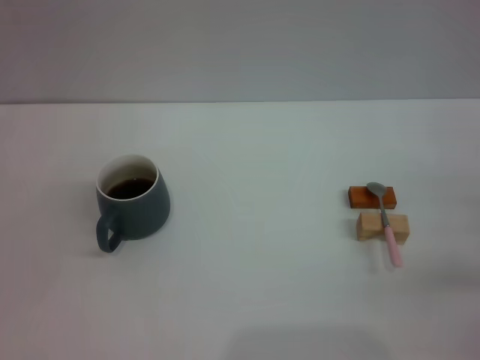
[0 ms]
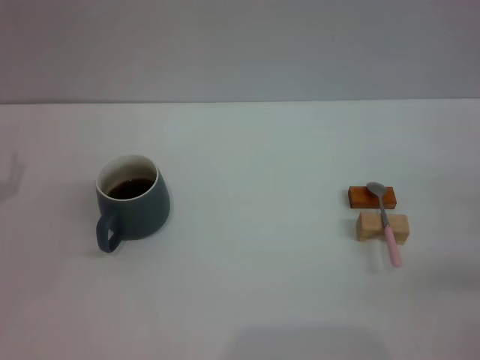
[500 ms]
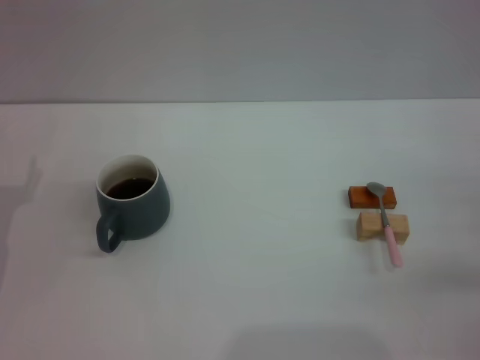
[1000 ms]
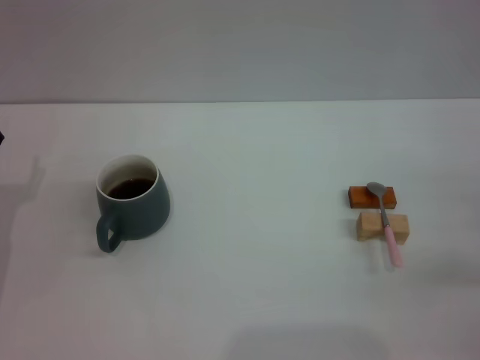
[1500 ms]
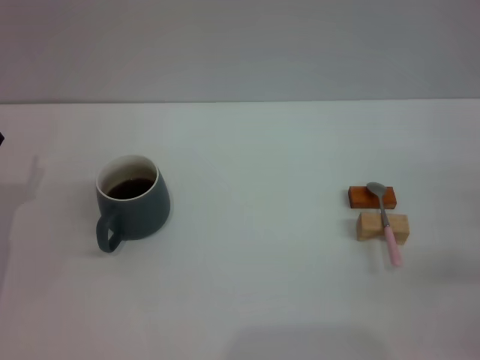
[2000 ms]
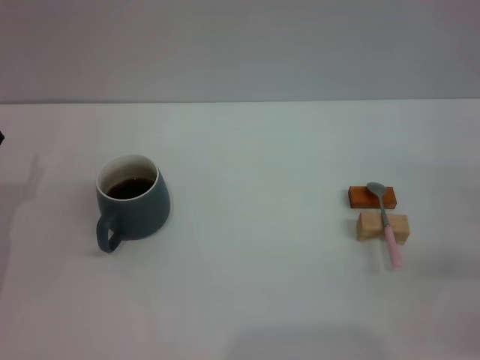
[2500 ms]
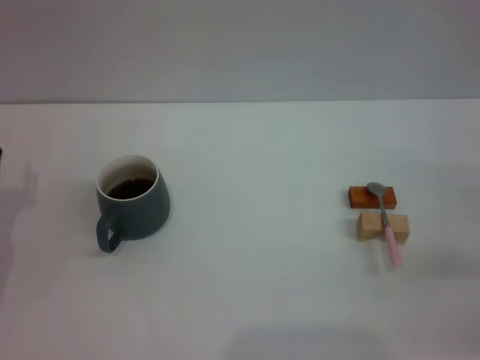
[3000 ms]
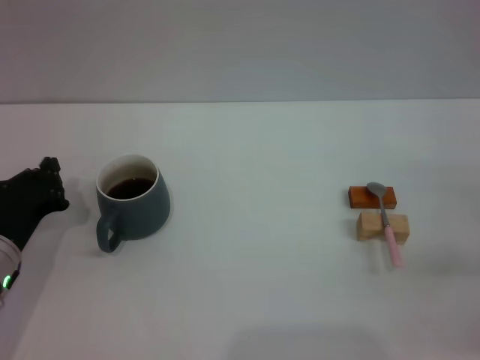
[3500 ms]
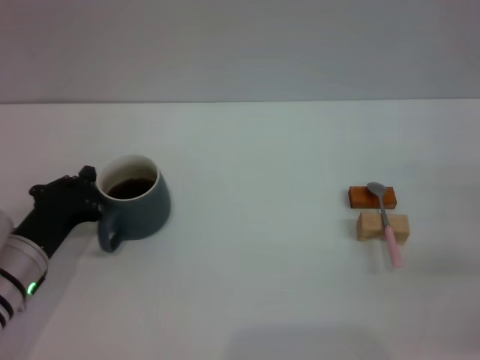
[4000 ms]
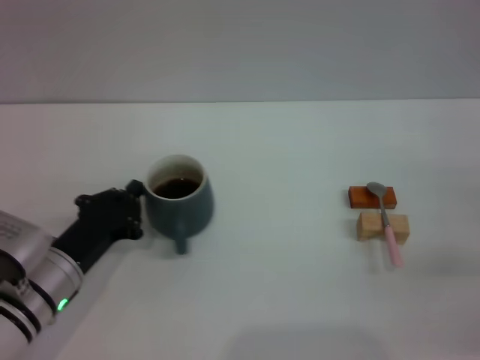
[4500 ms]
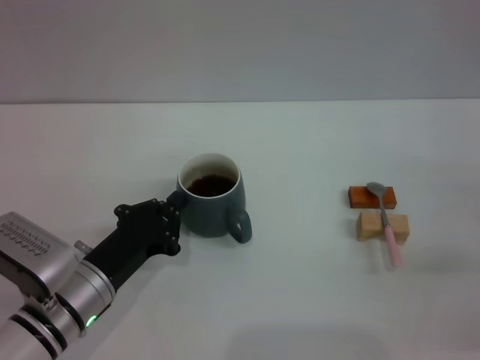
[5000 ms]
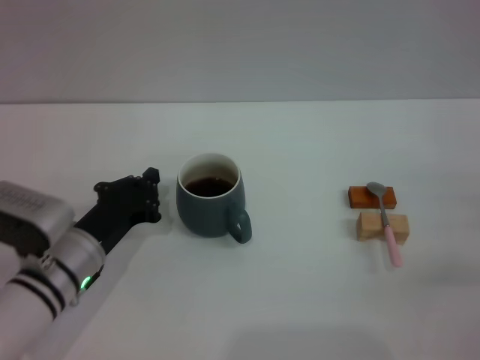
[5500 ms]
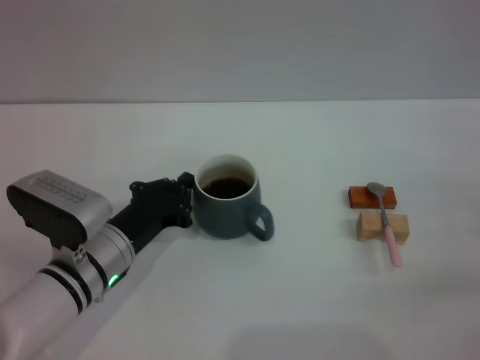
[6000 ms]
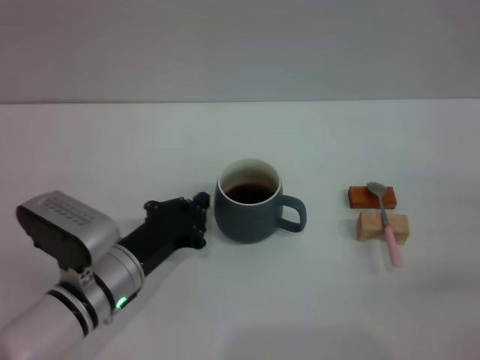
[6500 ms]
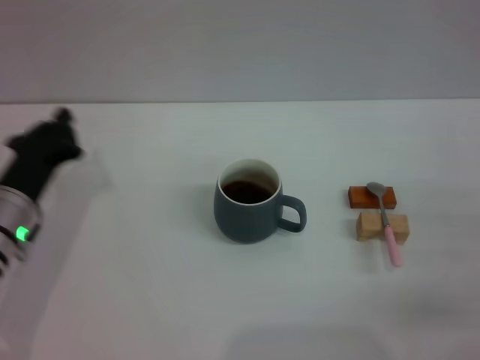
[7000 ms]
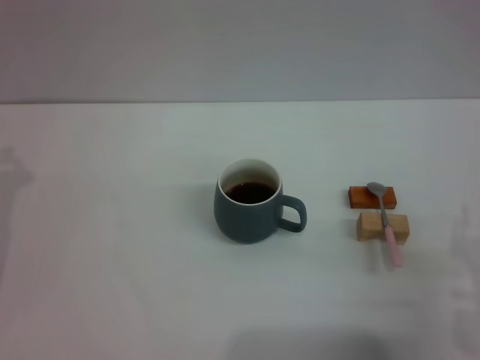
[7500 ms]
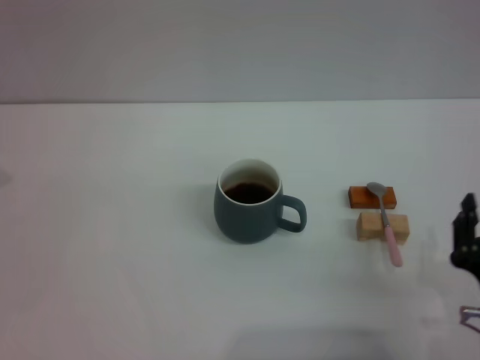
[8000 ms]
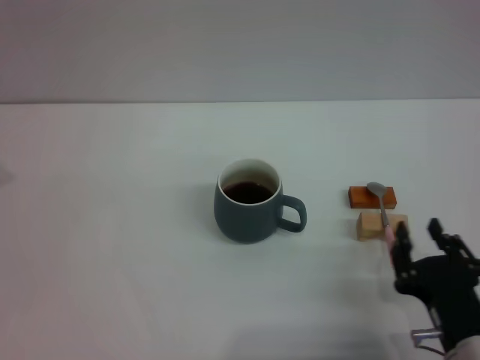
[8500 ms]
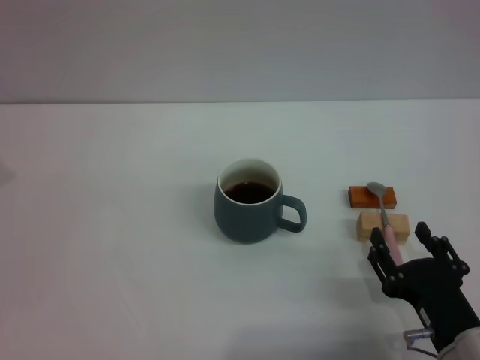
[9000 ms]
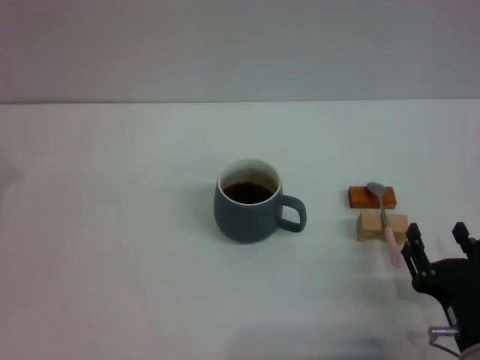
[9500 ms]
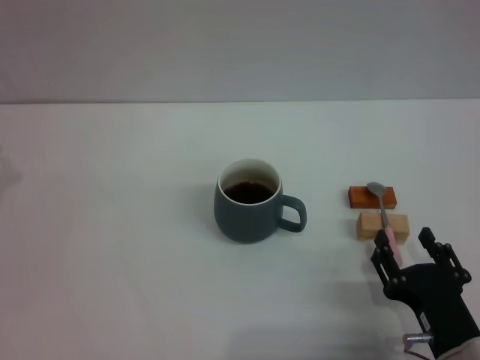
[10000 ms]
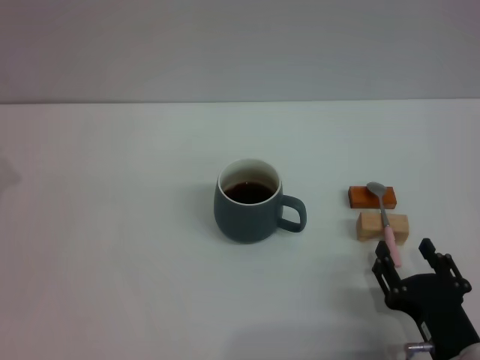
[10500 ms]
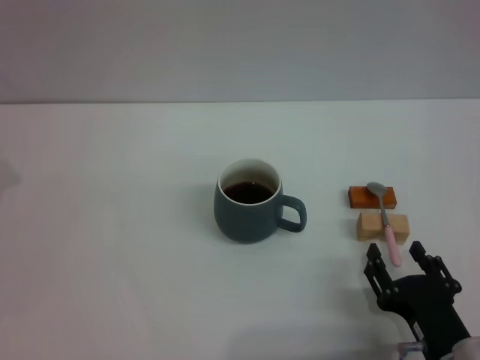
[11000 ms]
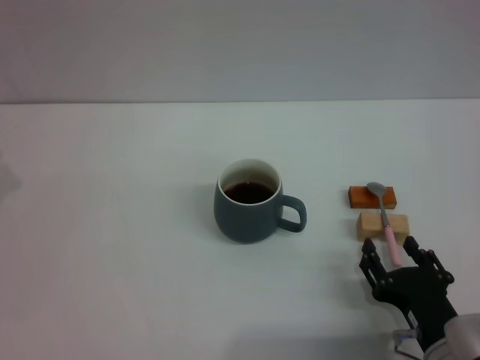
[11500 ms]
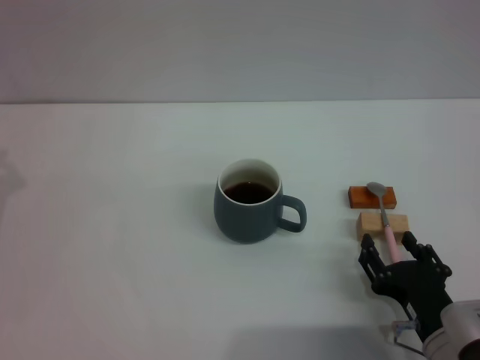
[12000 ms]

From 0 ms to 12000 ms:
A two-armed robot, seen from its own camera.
Task of the whole recording: Move the grey cup to the center, lift the pink spoon, stir it three times in the cup, and put the spoon into the cup.
Step, from 0 ms to 6500 ms: Move the cup with coffee to the center of view with the left gripper.
From 2000 ms to 4000 ms: The left gripper travels to the right by approximately 5 cm, and closes up.
From 4000 ms to 6000 ms: The left gripper goes some 10 cm to the right.
From 6000 ms to 8000 ms: The right gripper goes approximately 20 cm to the left and backward, while the left gripper shifts roughly 15 cm to the left.
From 8000 ms to 10000 ms: The grippers move only a little.
From 10000 ms to 12000 ms: The grippers stay close to where they were, moving slightly.

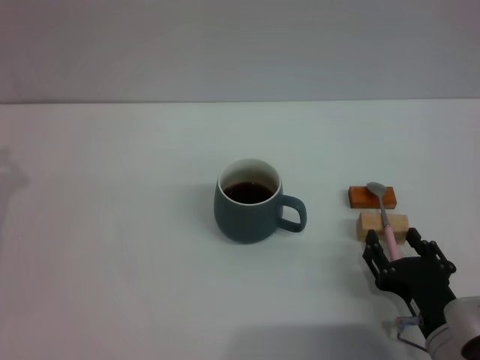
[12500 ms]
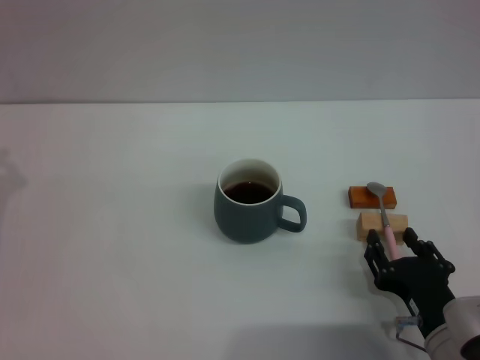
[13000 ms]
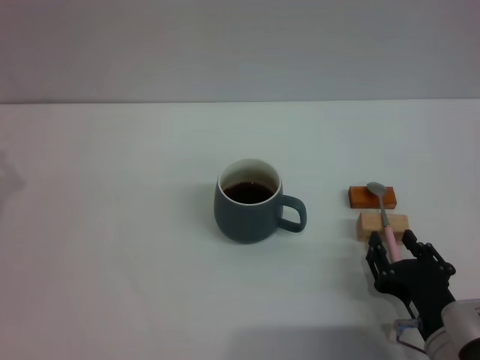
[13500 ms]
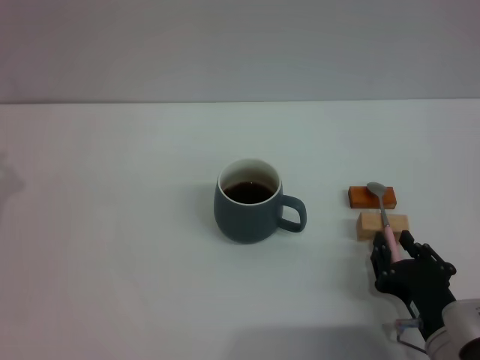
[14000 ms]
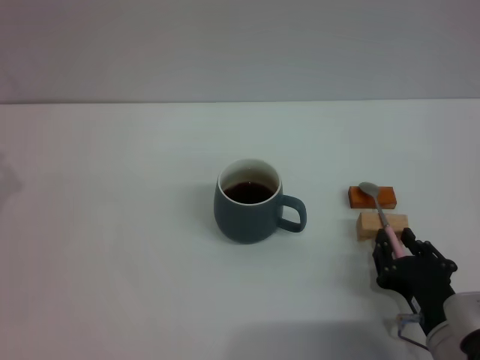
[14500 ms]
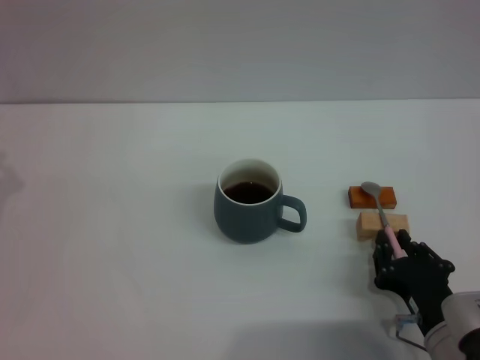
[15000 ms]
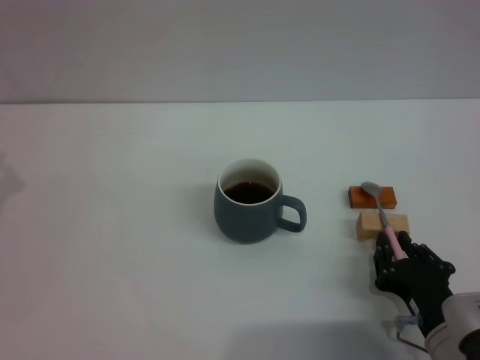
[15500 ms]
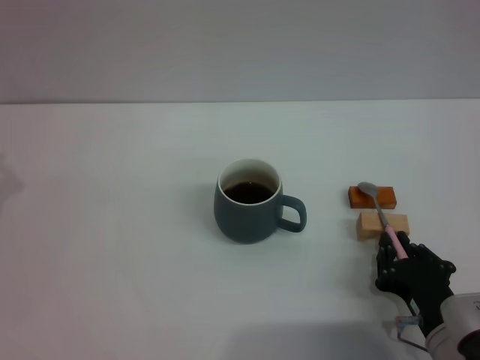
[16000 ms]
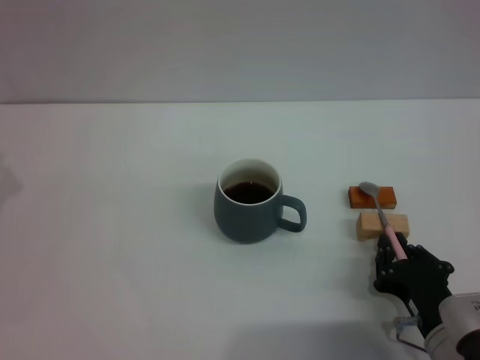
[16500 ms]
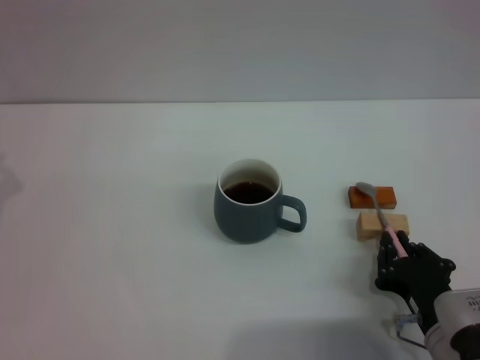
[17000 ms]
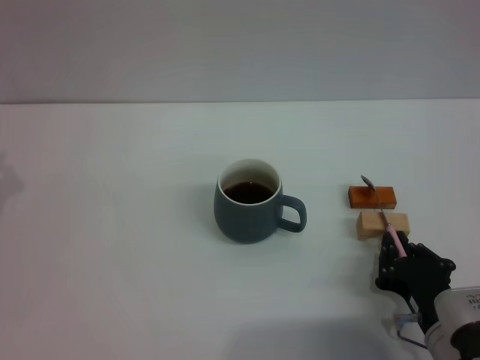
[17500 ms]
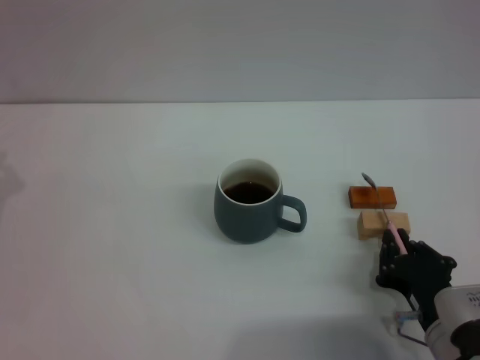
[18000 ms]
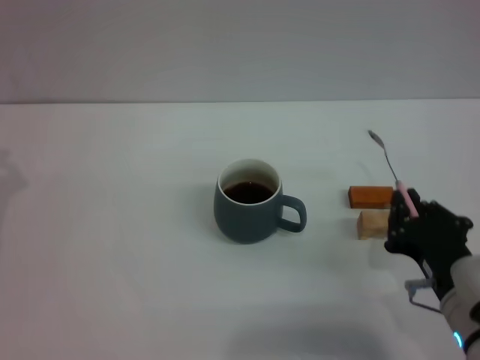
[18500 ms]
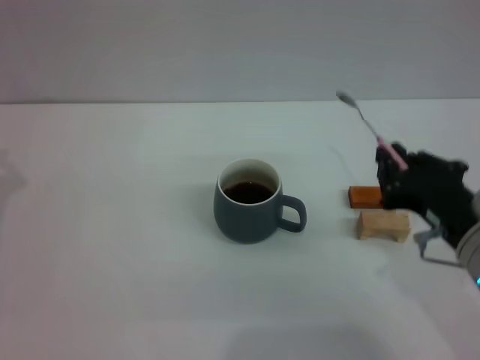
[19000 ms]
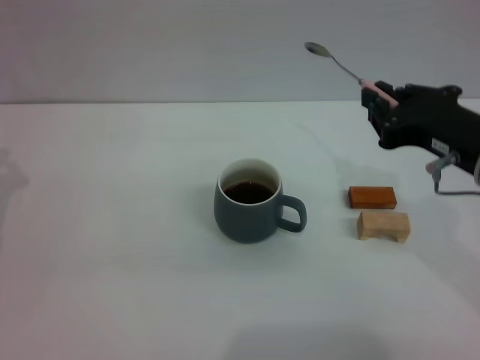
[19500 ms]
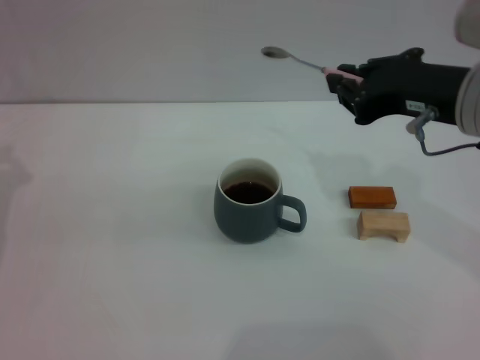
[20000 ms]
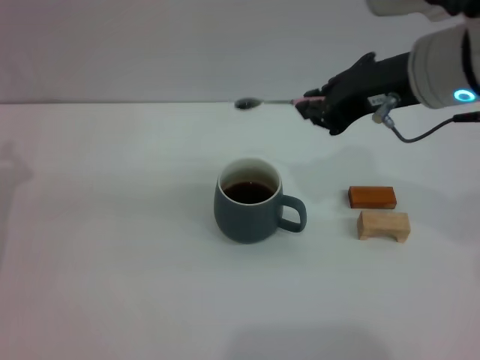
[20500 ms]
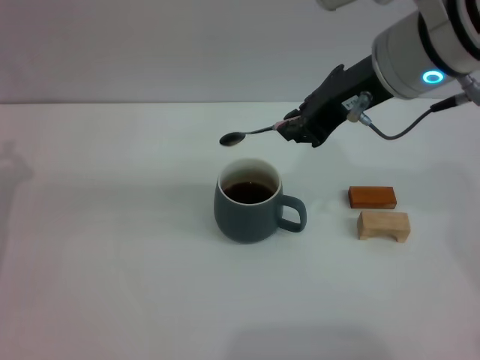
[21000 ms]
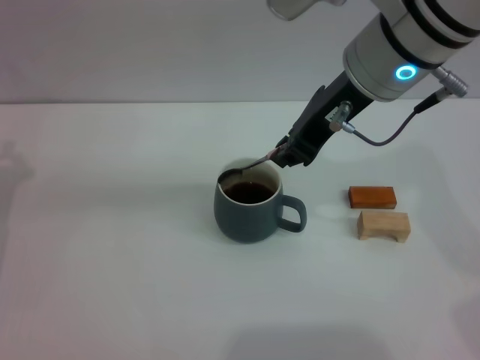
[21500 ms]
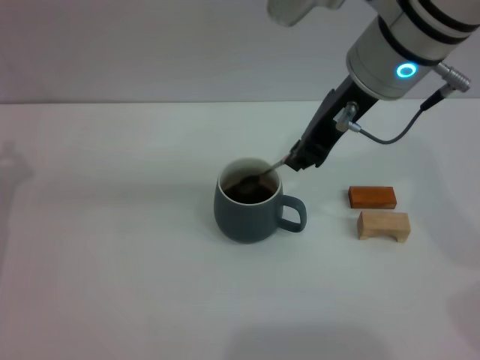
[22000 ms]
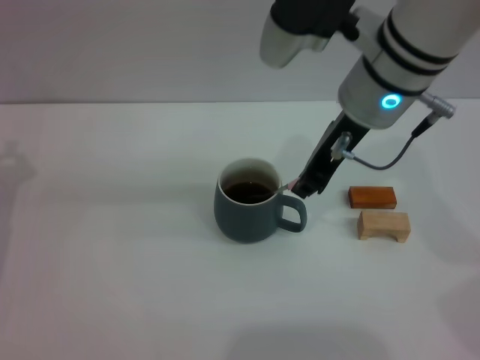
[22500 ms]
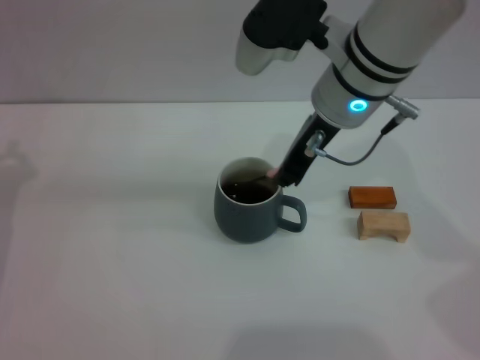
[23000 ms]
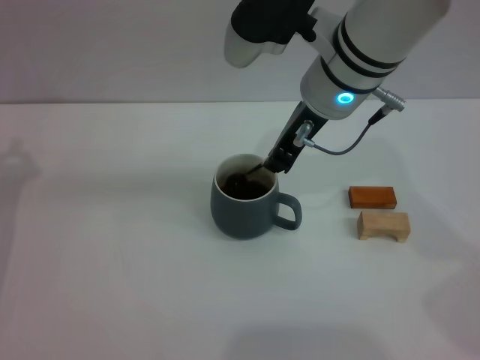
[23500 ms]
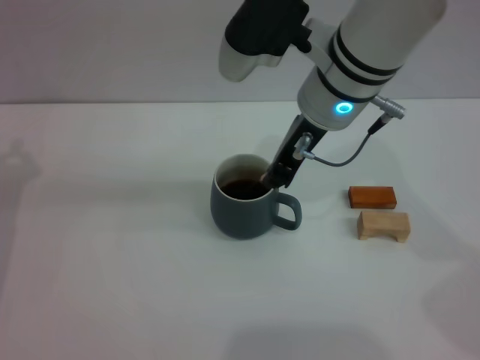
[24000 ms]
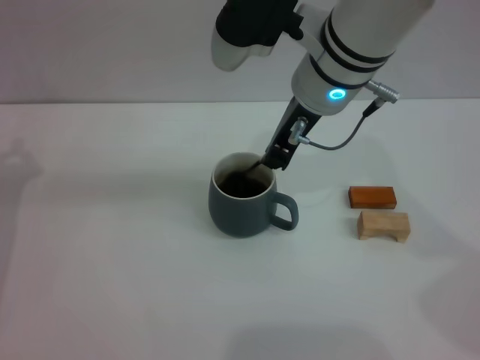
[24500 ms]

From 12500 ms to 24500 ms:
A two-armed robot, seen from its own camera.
Task of the whole recording: Move the grey cup to the center, lift the pink spoon, stir it three times in the cup, and put the spoon into the cup.
Step, from 12500 ms to 18000 ms: Pick up the spoon with the right gripper.
From 12500 ms to 14500 ms: The right gripper closes its fingers.
From 14500 ms to 16500 ms: Both grippers stay about where they are.
From 16500 ms to 18500 ms: The right gripper shifts some 5 cm upward.
From 18500 ms to 20500 ms: The right gripper heads upward and forward, covering some 25 cm.
From 20500 ms to 22500 ms: The right gripper moves to the left, some 5 cm.
From 22500 ms to 24500 ms: The grippers make only small movements.

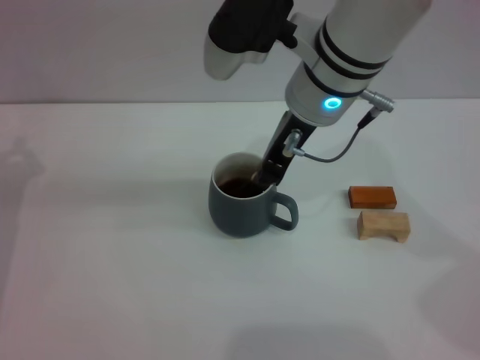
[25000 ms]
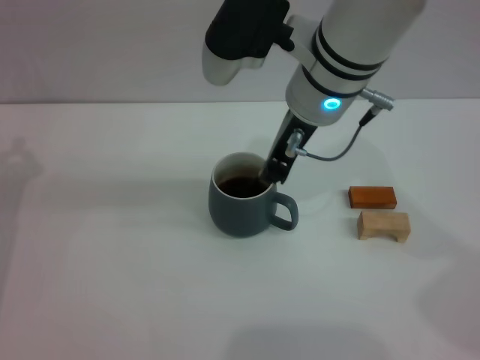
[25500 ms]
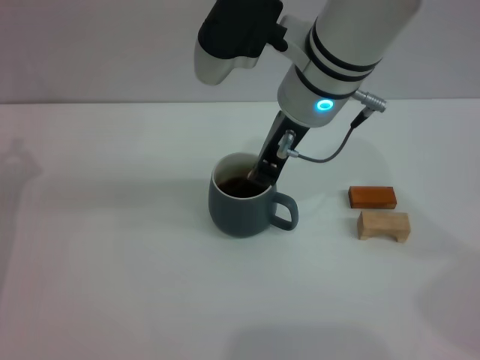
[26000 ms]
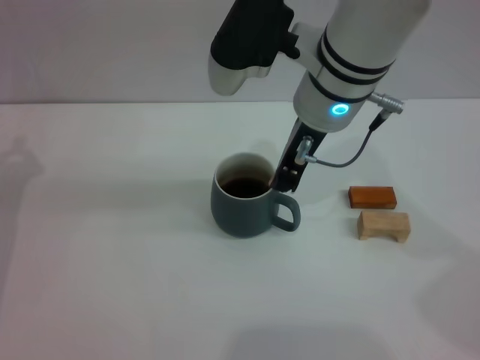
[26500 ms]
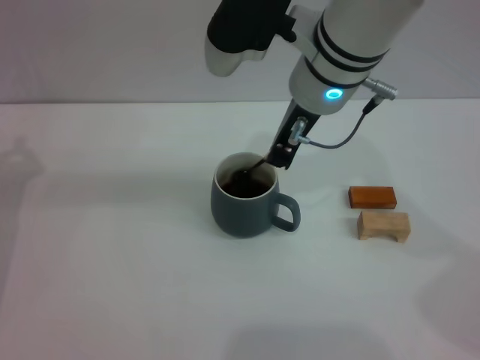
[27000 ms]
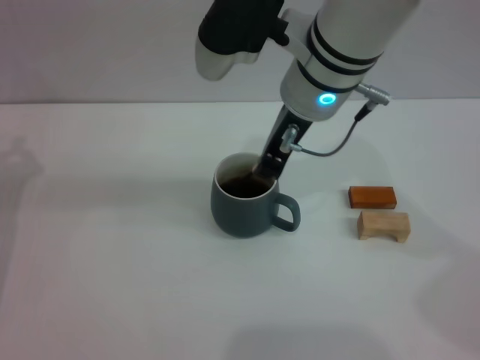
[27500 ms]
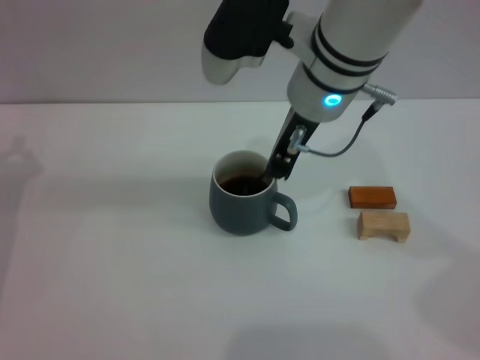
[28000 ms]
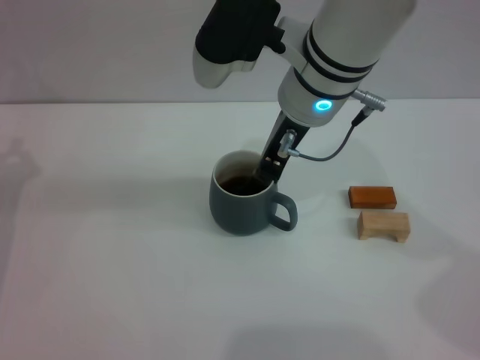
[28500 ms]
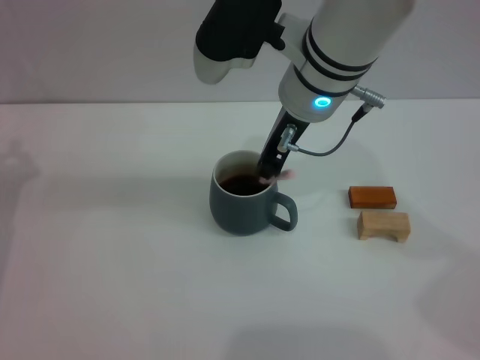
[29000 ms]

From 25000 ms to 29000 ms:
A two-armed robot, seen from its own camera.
Task of the whole recording: Move the grey cup to the center, lift the pink spoon, stir it three times in the cup, and put the spoon into the cup.
From 25000 ms to 27000 ms: The grippers stay close to where they were, moving slightly.
From 27000 ms to 29000 ms: Both grippers stay about where they are.
